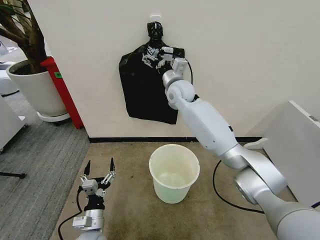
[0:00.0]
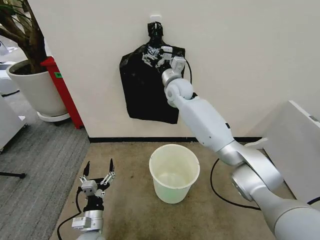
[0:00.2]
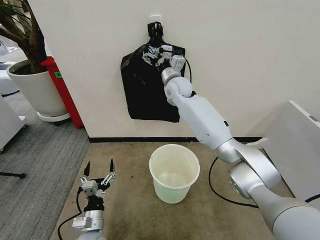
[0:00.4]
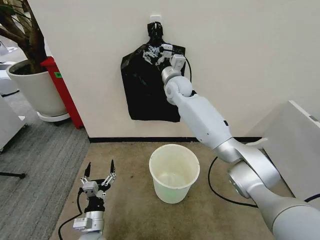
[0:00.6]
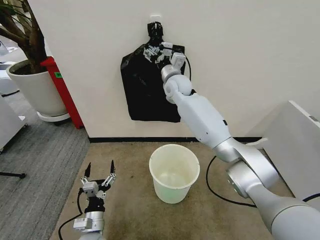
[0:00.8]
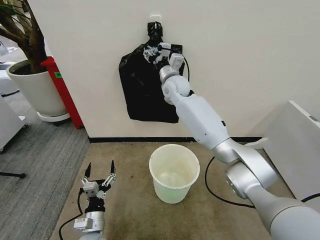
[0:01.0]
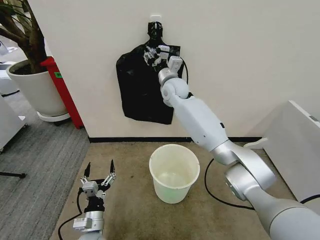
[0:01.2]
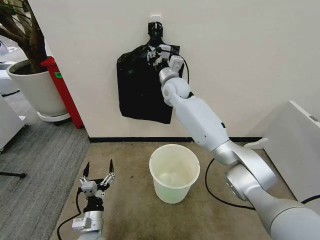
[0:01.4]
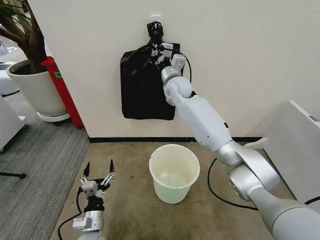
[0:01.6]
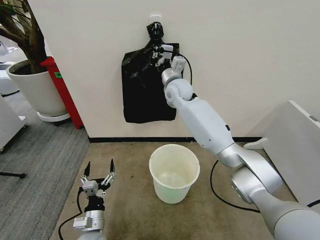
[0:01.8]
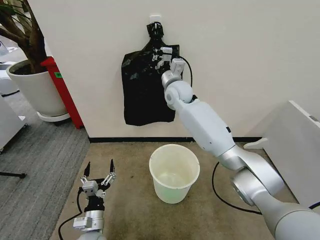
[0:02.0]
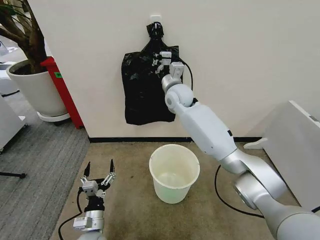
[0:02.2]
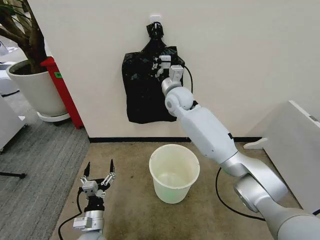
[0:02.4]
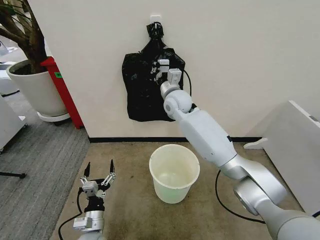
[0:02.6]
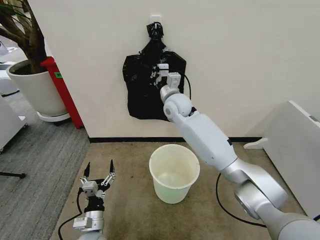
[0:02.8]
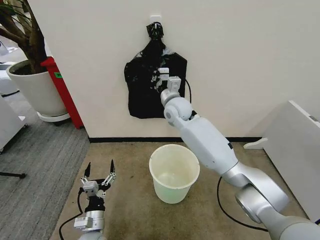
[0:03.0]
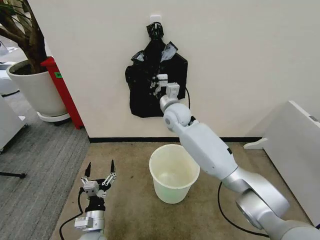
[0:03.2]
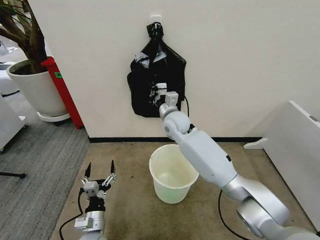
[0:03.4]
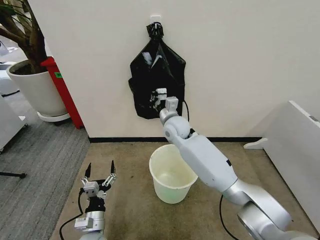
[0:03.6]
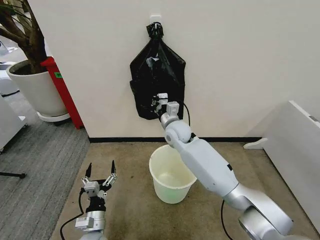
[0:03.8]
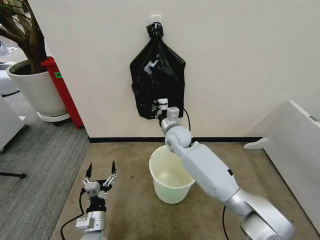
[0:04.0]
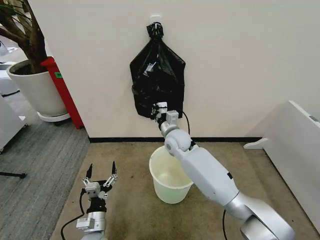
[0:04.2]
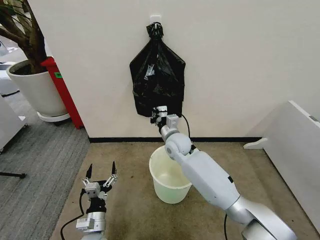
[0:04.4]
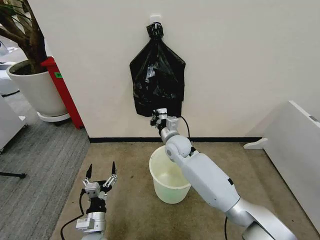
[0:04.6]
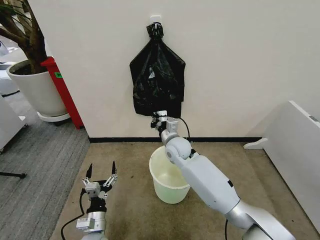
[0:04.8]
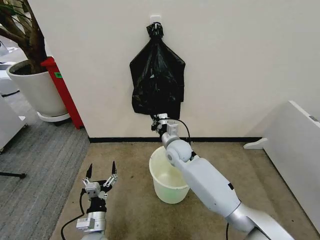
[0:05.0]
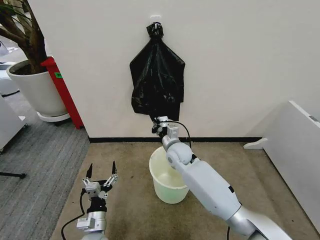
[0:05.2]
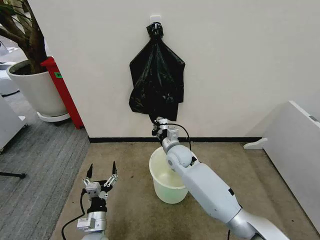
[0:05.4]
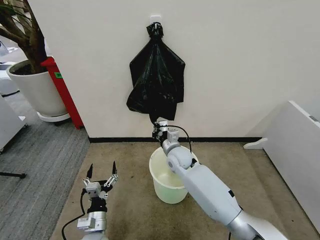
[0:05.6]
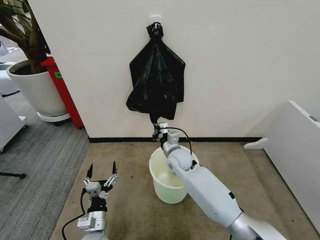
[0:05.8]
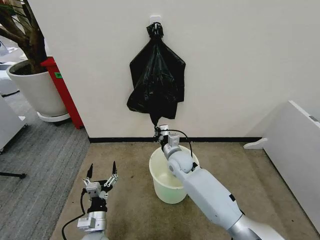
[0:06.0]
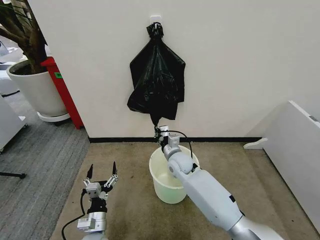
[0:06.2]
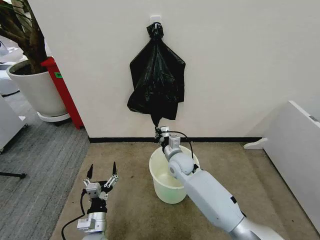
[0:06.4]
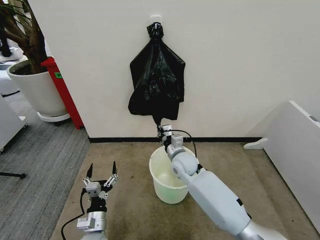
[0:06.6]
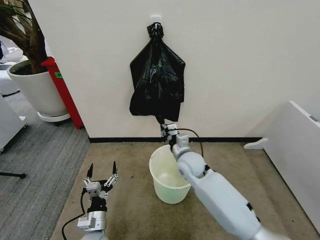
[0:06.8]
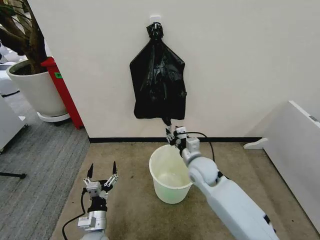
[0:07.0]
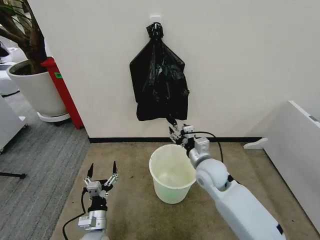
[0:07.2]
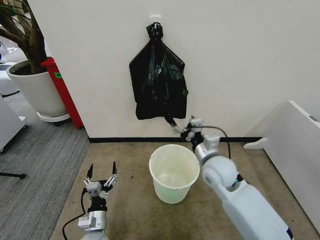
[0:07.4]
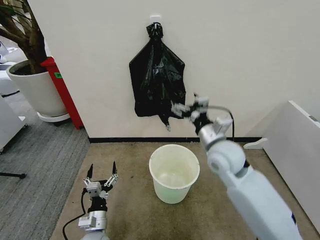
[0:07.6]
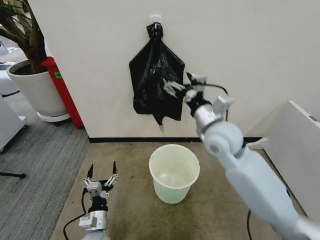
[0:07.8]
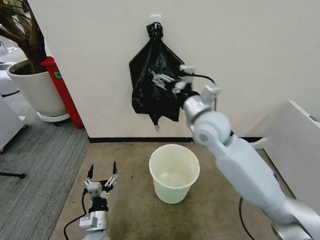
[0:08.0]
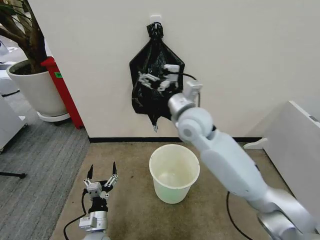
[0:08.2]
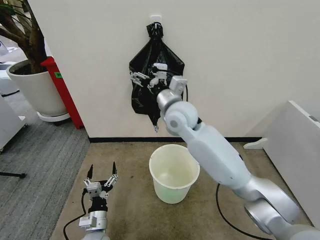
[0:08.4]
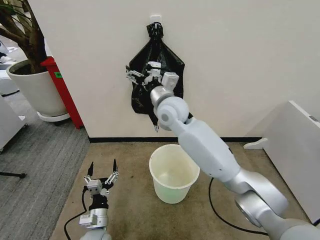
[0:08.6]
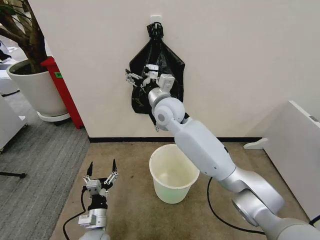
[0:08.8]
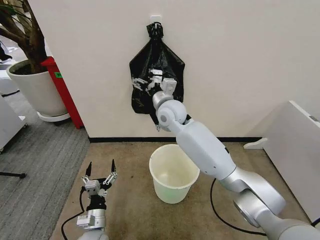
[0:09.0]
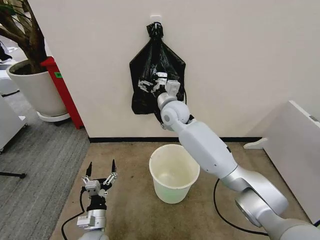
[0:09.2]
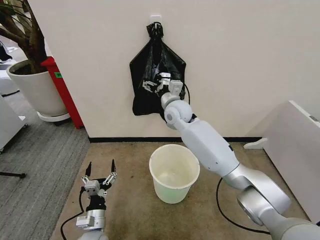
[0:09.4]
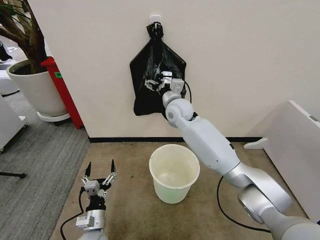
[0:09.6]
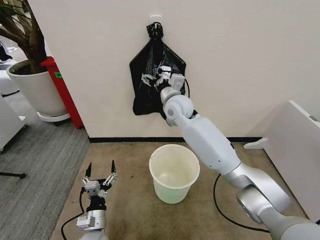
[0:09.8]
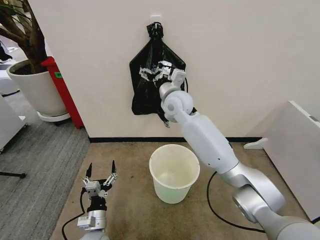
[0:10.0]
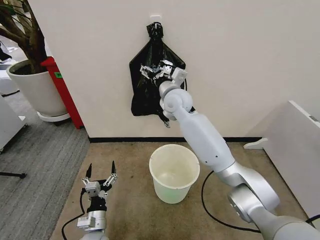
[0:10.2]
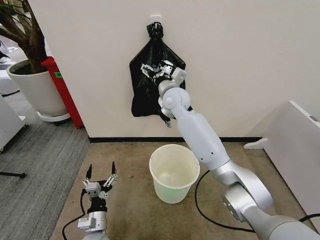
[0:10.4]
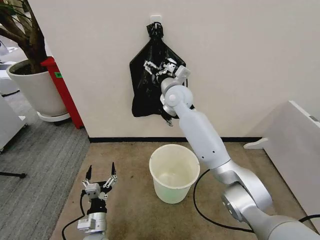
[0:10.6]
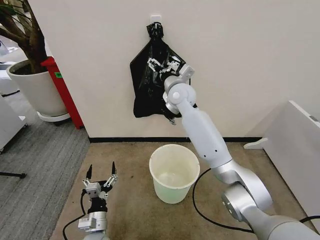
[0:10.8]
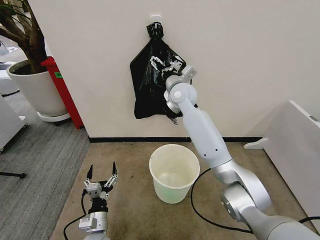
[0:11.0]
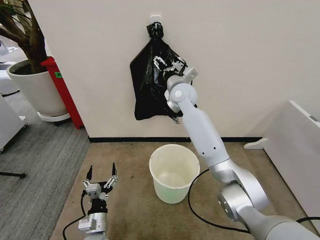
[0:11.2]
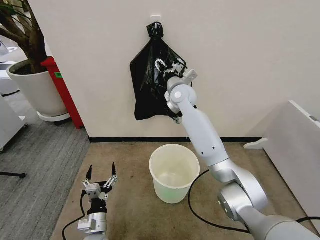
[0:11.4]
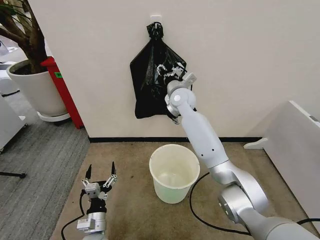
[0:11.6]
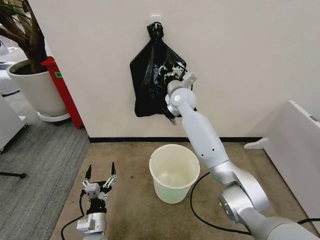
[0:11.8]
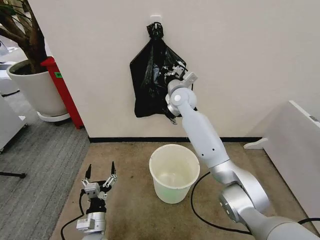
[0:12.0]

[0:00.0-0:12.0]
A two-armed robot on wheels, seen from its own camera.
Task of the whole recording: Place the garbage bag over the trash bin.
0:00.0 to 0:01.6: The right gripper closes its fingers.
0:01.6 to 0:03.0: The right gripper shifts roughly 10 cm backward and downward.
0:03.0 to 0:04.4: The right gripper heads downward and backward, covering about 15 cm.
0:04.4 to 0:06.0: The right gripper heads downward, covering some 5 cm.
0:06.0 to 0:07.6: The right gripper shifts about 20 cm upward, to the right and backward, and opens up.
0:07.6 to 0:09.0: The right gripper heads forward and to the left, covering about 20 cm.
0:09.0 to 0:10.4: The grippers stay close to where they were, moving slightly.
0:10.4 to 0:12.0: The right gripper closes up.

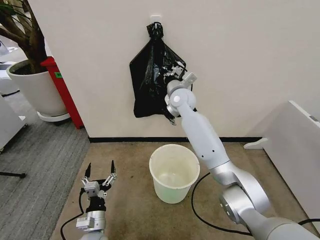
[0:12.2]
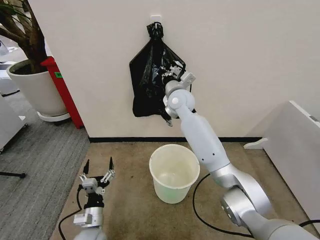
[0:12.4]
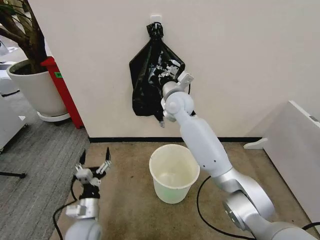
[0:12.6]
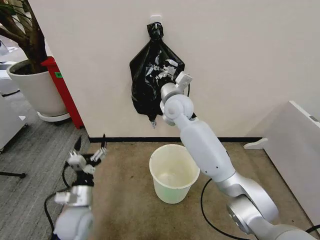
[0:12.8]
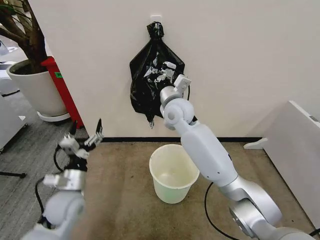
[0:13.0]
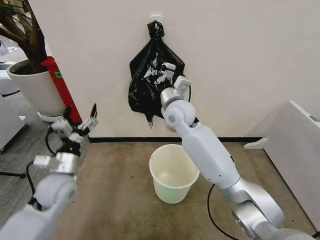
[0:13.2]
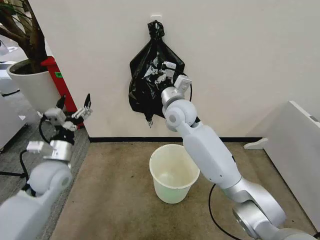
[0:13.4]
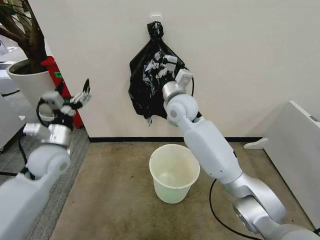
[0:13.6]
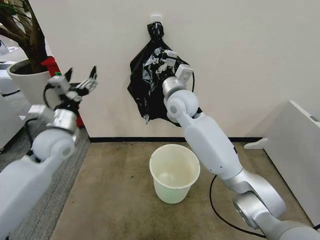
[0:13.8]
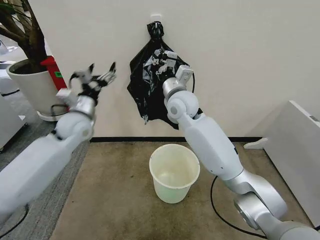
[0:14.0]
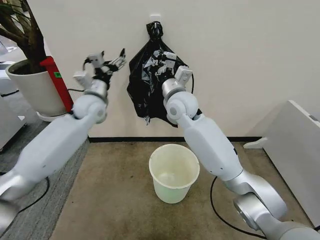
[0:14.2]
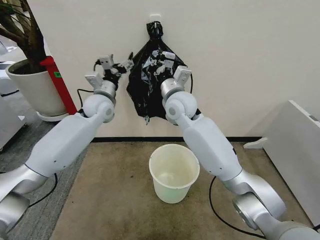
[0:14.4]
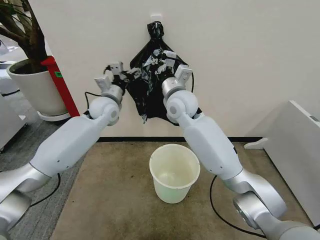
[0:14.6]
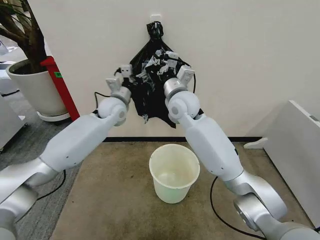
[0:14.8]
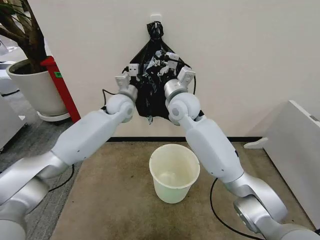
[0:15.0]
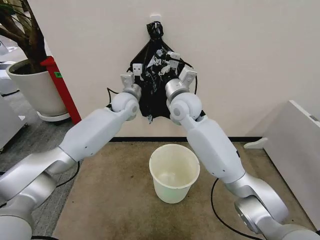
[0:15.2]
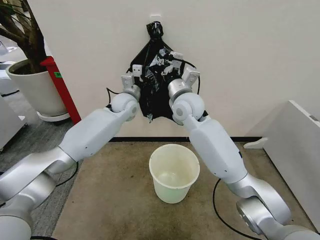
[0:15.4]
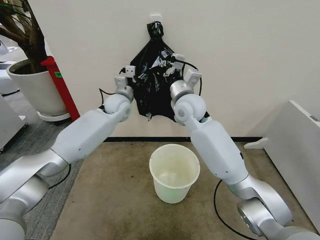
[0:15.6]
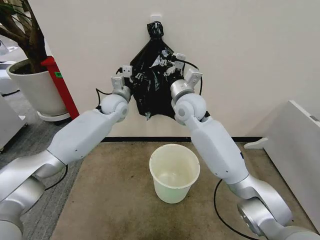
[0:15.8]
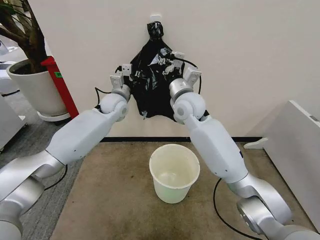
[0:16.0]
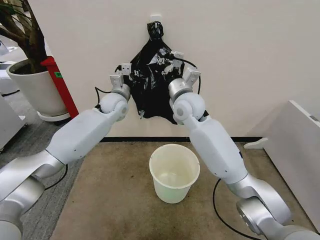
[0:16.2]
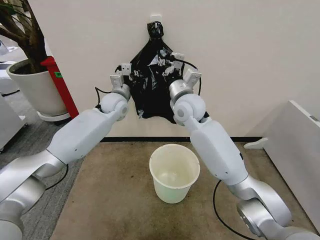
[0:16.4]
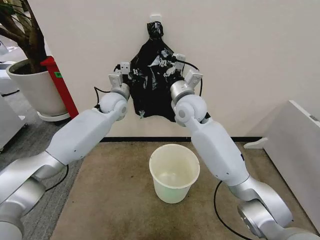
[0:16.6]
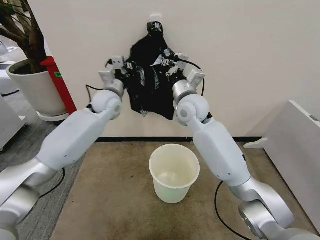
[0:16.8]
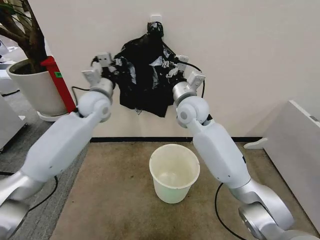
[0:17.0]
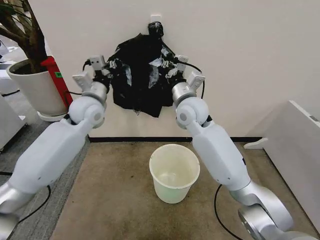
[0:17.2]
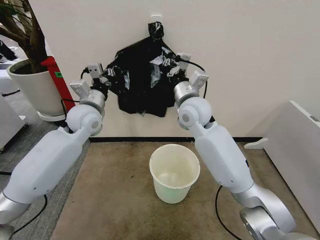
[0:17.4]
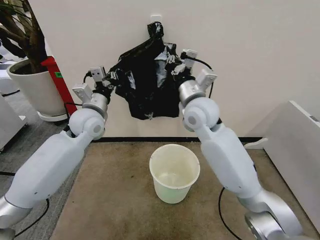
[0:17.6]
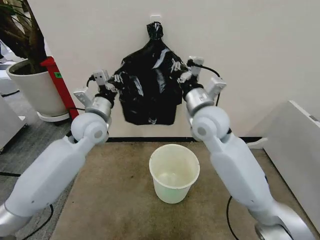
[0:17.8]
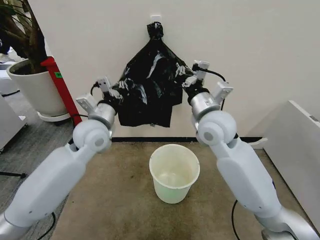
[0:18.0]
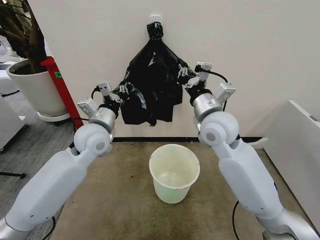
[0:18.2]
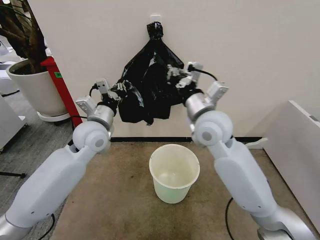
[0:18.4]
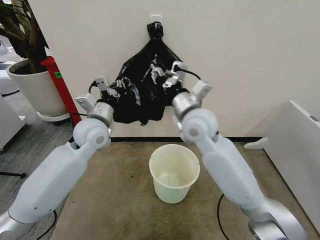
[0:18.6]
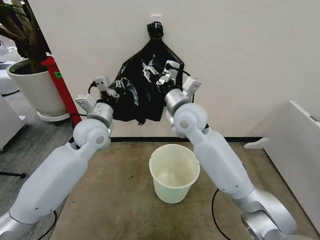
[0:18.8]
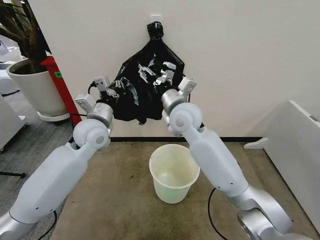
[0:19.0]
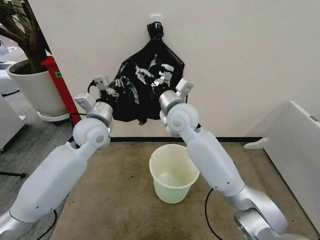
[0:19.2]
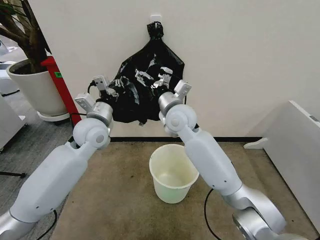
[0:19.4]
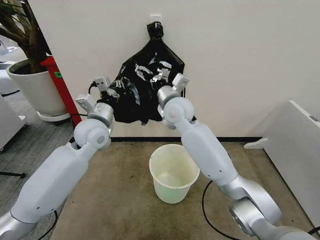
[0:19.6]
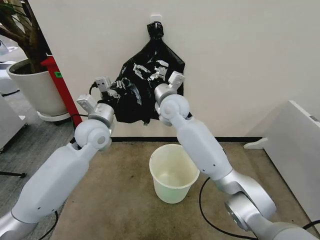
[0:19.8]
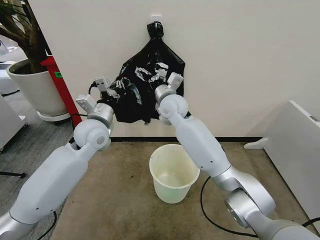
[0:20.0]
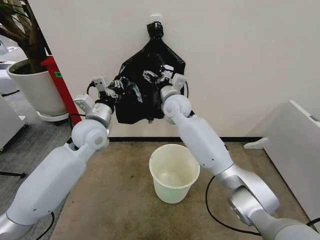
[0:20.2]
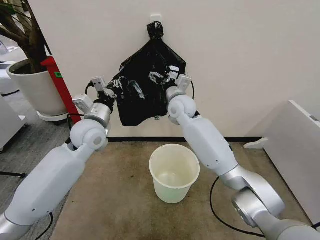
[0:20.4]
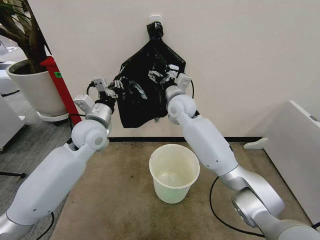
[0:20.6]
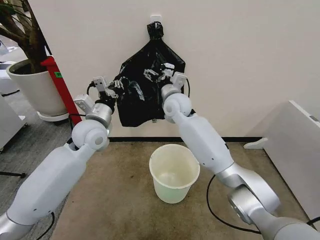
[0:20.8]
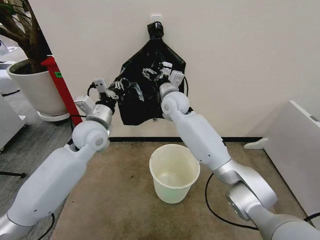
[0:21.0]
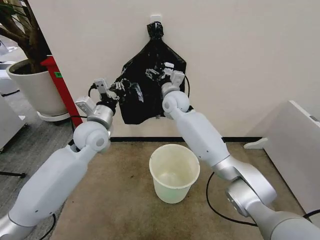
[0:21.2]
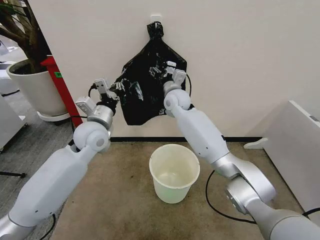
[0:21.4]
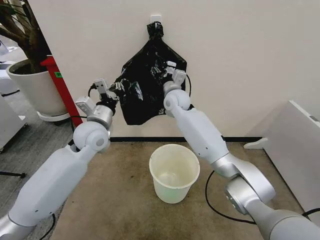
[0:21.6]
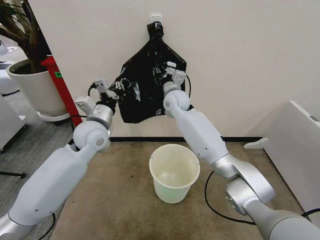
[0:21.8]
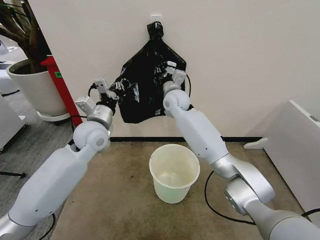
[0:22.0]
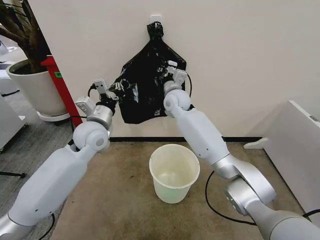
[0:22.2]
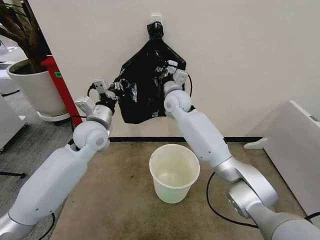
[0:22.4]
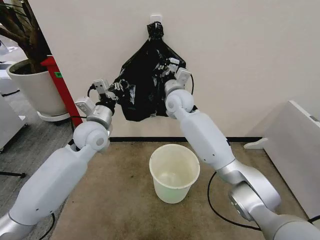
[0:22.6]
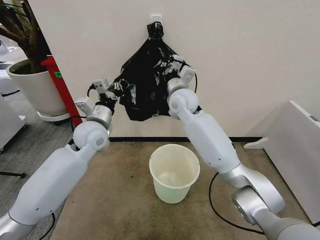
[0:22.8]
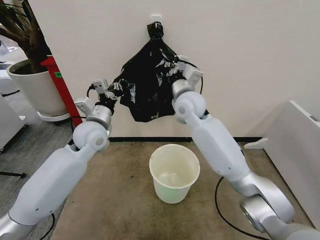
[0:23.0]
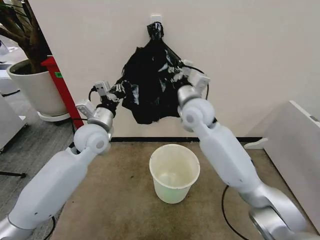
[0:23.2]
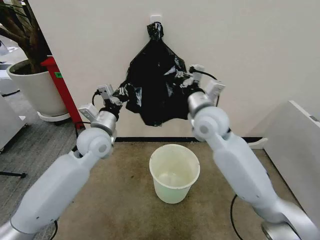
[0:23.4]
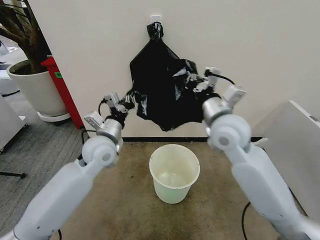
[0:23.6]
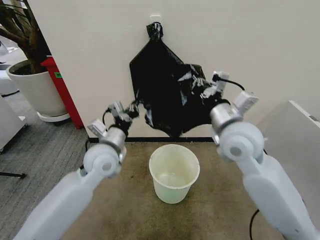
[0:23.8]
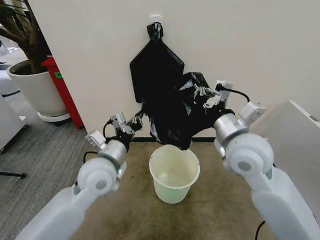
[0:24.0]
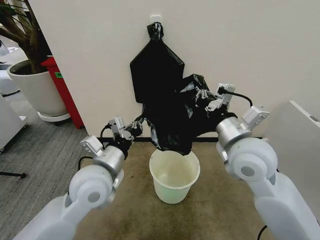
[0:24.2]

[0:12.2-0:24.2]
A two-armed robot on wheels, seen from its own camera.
Task of the whole recording: Place the garbage bag over the trash bin.
0:12.2 to 0:13.8: The left gripper travels upward and forward by approximately 35 cm, while the right gripper heads backward, covering approximately 5 cm.
0:13.8 to 0:15.2: The left gripper goes some 25 cm forward and to the right.
0:15.2 to 0:16.6: The left gripper closes.
0:16.6 to 0:18.2: The left gripper goes approximately 15 cm backward, while the right gripper heads backward and to the right, covering approximately 10 cm.
0:18.2 to 0:19.8: The right gripper travels forward and to the left by roughly 15 cm, and opens its fingers.
0:19.8 to 0:21.2: The right gripper moves forward, about 5 cm.
0:21.2 to 0:22.6: The right gripper closes its fingers.
0:22.6 to 0:24.2: The left gripper travels backward by roughly 15 cm; the right gripper heads backward and to the right, covering roughly 30 cm.
